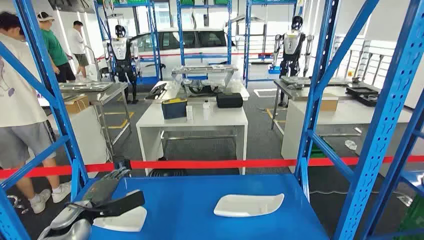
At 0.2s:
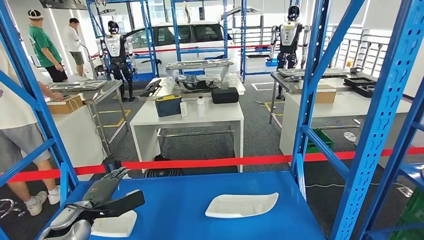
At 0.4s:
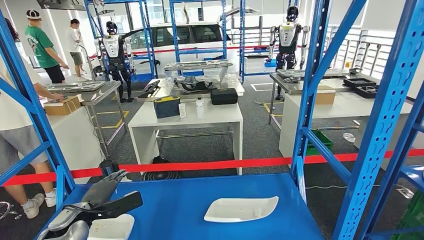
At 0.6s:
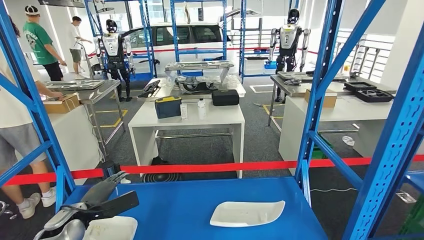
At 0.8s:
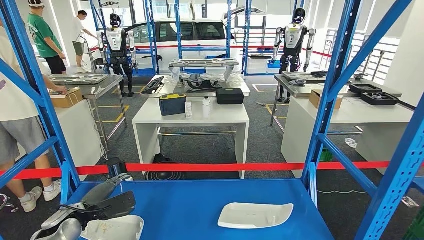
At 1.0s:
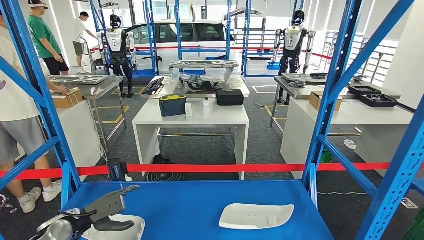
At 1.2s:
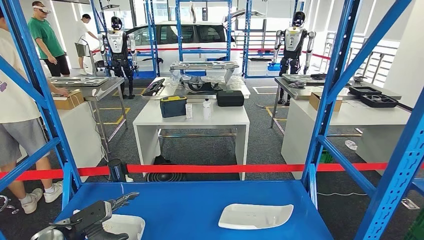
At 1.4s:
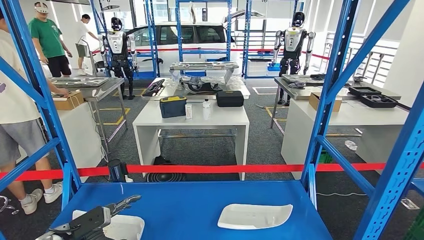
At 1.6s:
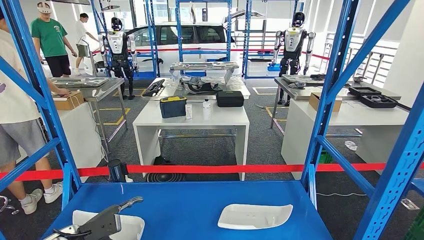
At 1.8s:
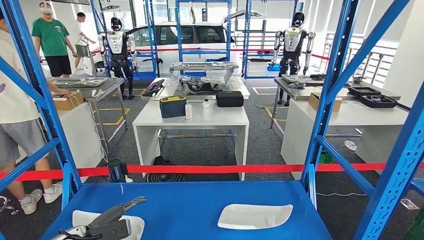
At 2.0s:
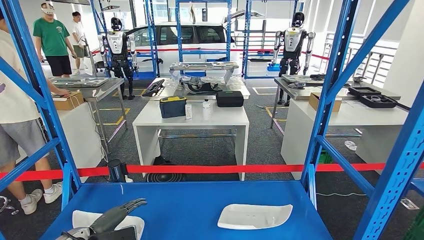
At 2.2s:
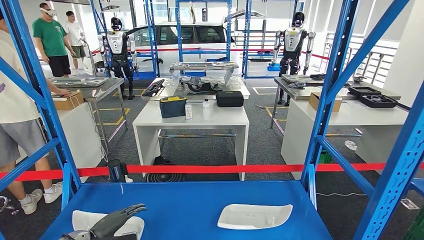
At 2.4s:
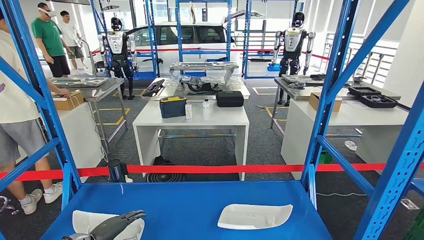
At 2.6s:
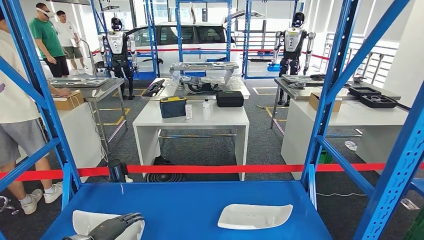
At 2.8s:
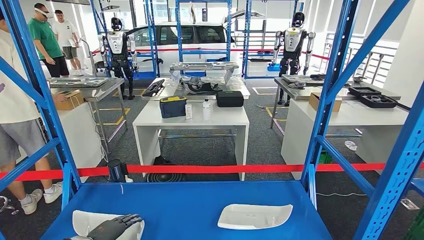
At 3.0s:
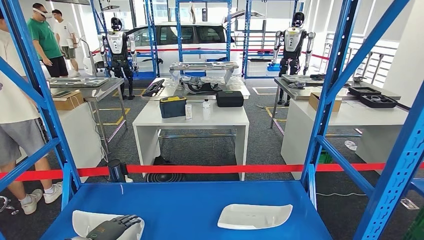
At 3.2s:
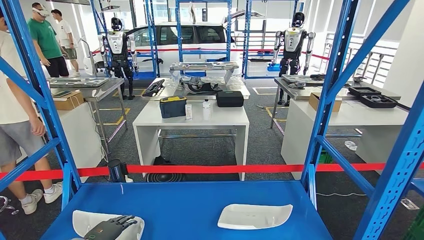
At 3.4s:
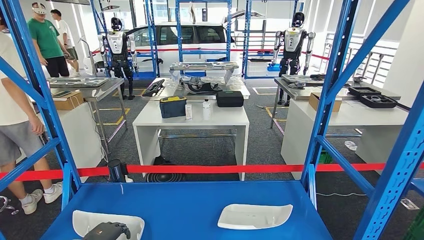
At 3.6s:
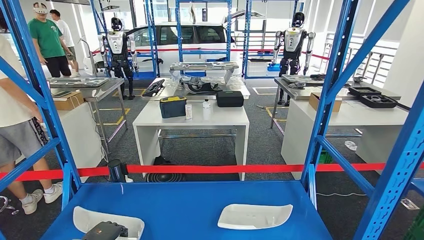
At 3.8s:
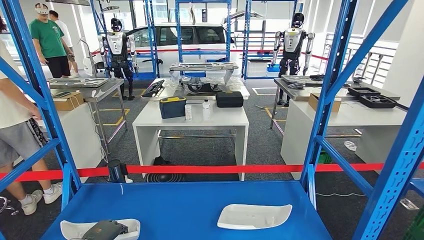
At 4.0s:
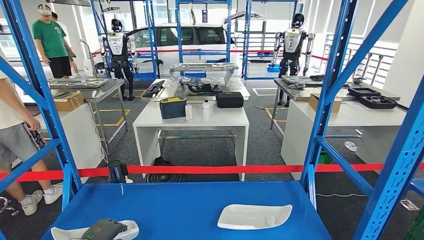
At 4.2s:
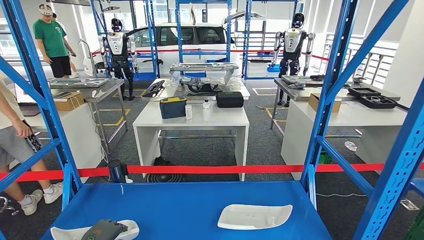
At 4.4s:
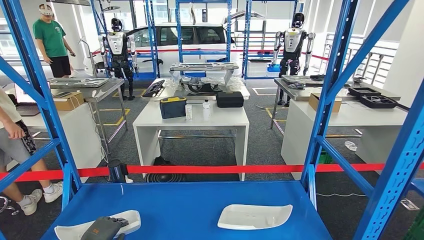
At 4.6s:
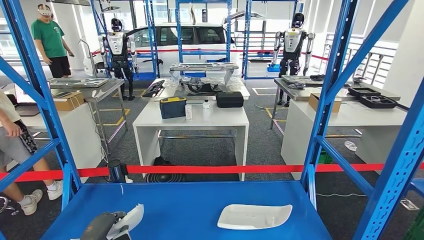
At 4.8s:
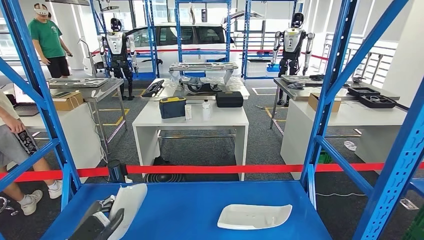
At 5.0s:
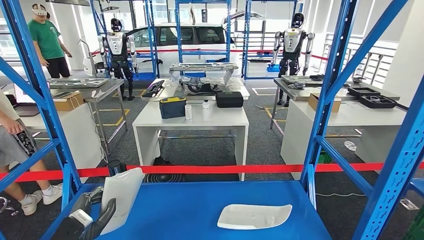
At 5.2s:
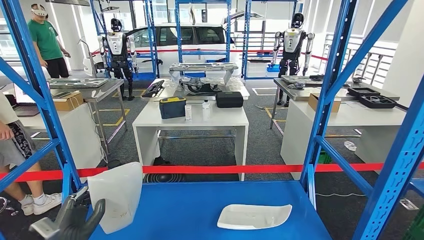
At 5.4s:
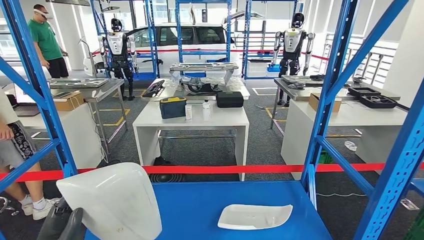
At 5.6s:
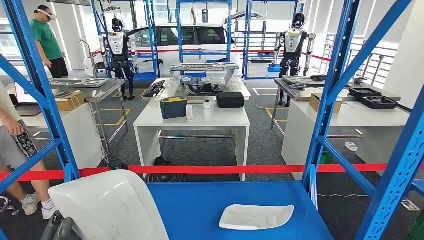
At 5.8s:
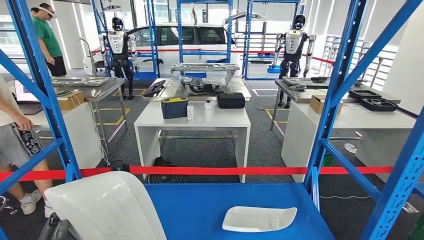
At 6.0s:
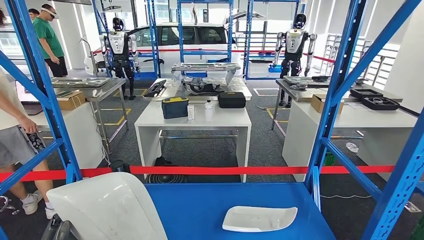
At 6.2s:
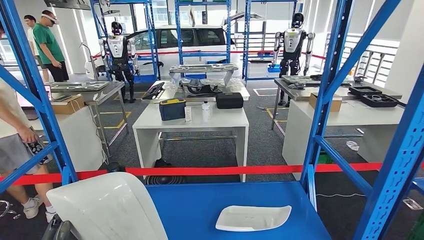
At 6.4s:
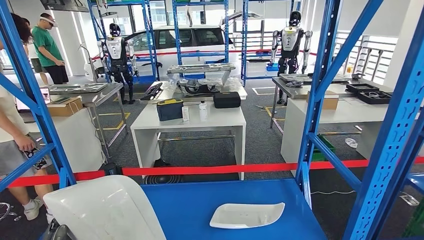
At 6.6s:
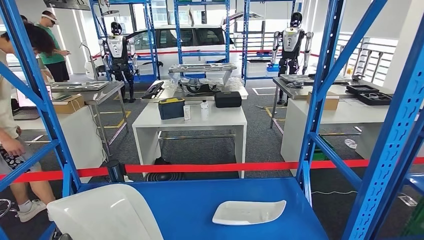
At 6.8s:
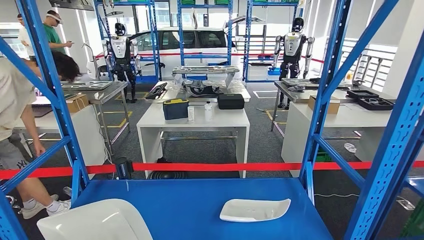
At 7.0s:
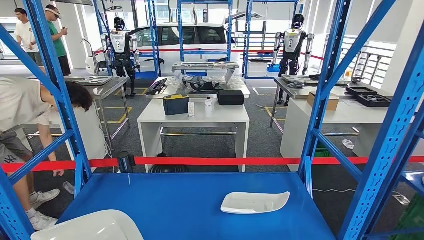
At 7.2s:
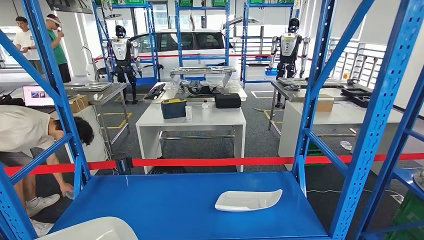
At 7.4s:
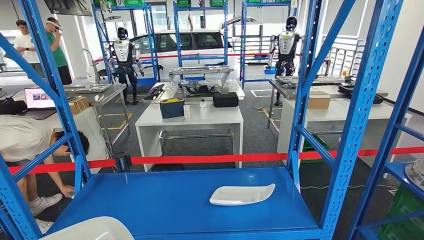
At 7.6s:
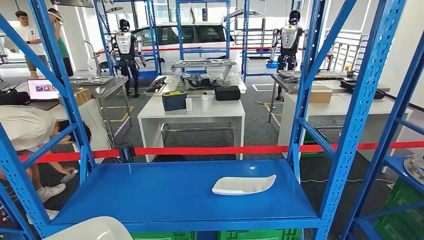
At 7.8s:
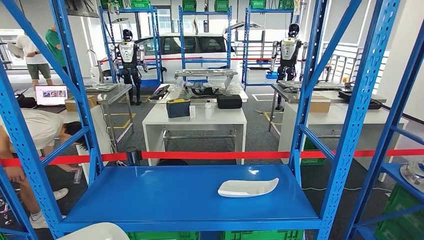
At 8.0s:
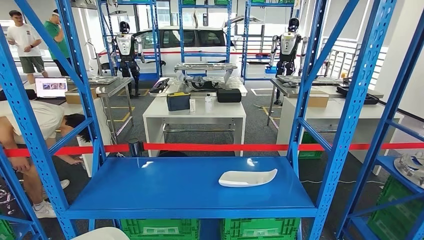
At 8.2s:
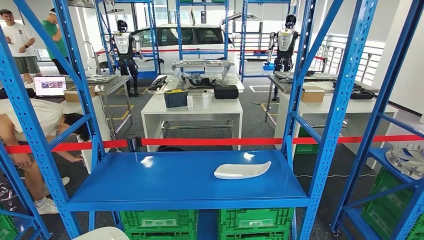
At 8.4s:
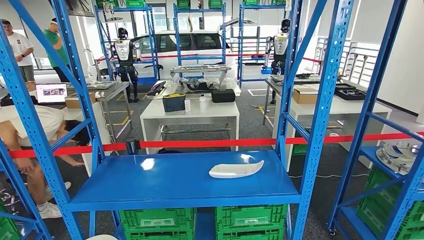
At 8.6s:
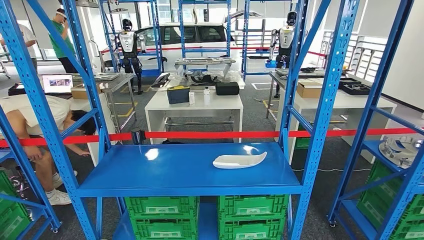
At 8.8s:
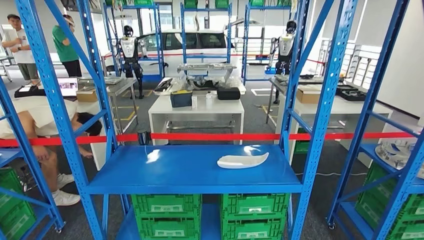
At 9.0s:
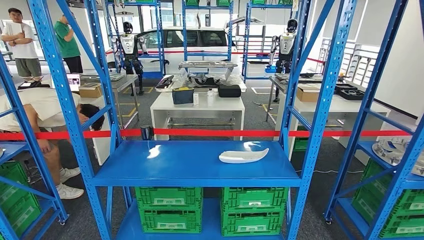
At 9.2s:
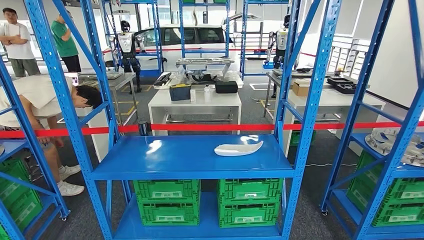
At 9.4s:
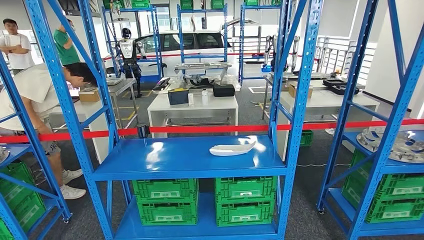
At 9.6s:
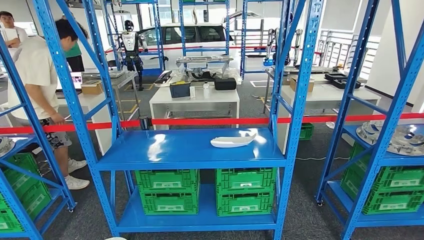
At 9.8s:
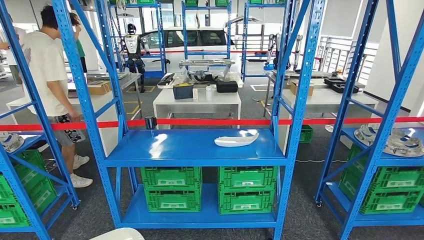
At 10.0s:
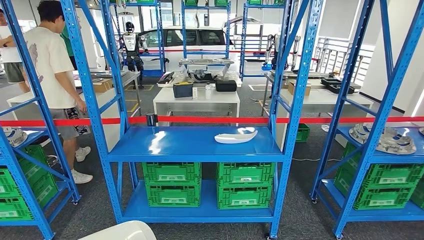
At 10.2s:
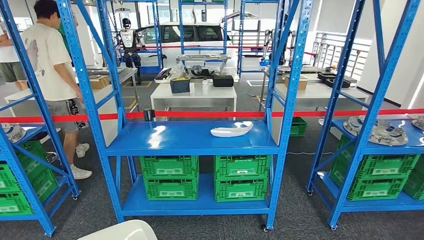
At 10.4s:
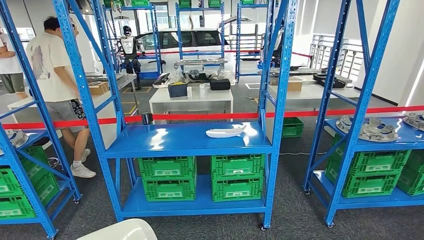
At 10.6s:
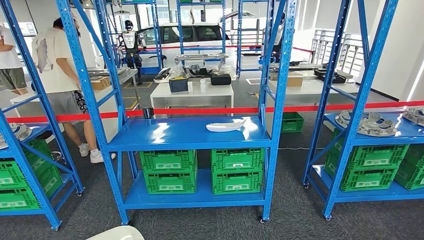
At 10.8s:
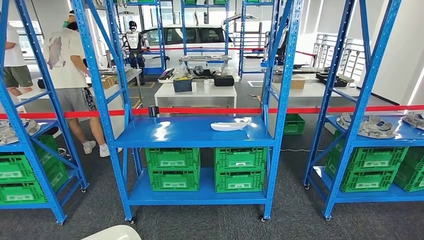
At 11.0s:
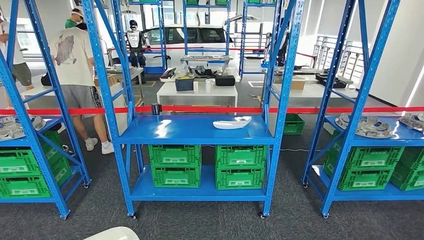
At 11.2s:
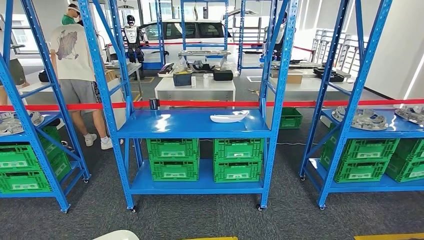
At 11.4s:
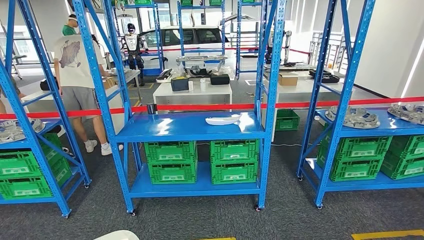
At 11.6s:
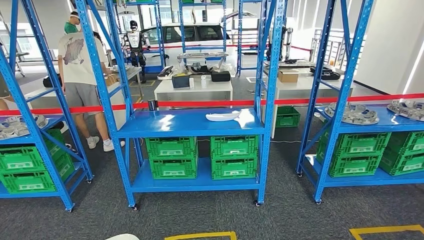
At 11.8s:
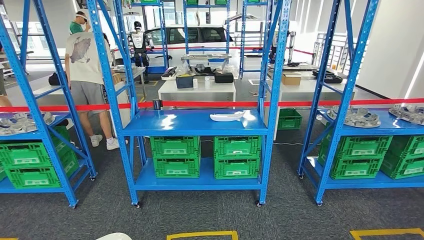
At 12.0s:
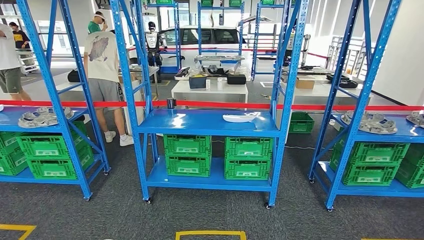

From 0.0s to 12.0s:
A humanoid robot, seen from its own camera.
Step, from 0.0s to 5.6s: Pick up the small parts from the shelf.
From 3.0s to 4.4s: The hands stay close to where they were, moving slightly.

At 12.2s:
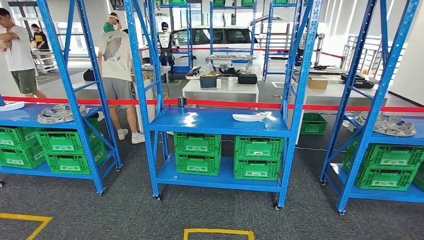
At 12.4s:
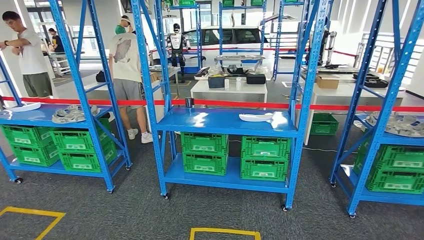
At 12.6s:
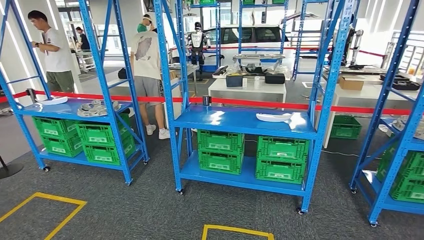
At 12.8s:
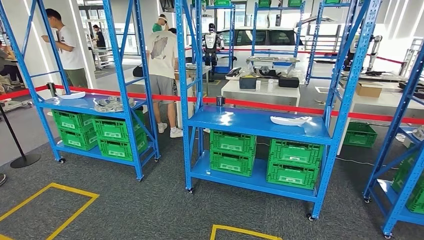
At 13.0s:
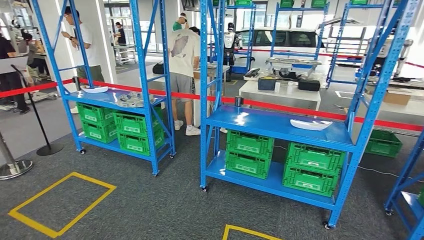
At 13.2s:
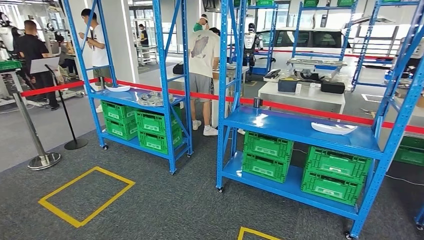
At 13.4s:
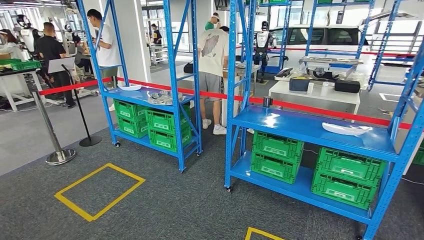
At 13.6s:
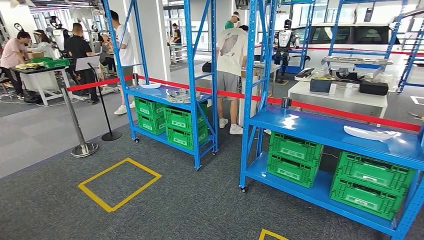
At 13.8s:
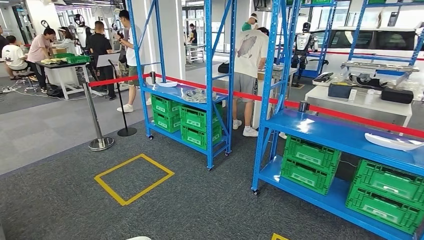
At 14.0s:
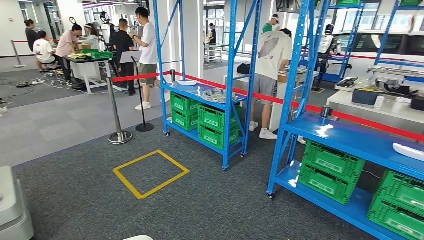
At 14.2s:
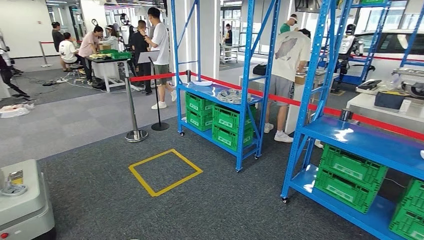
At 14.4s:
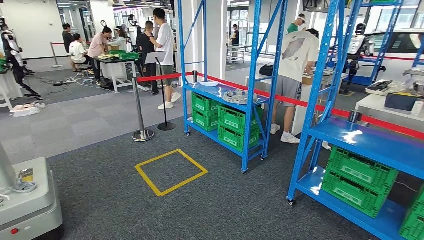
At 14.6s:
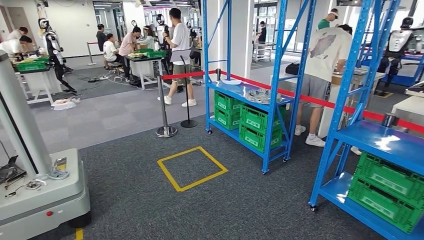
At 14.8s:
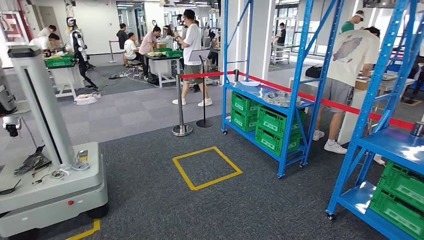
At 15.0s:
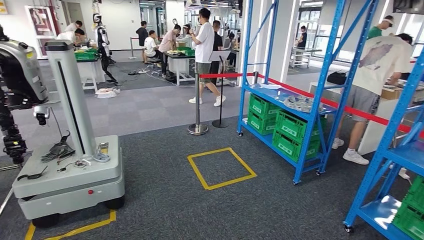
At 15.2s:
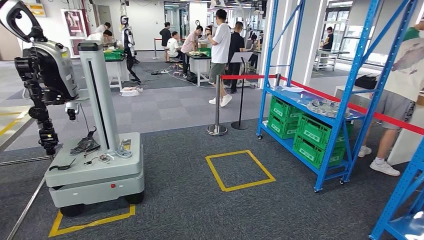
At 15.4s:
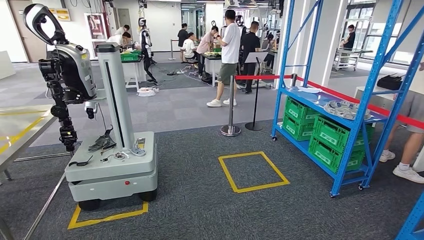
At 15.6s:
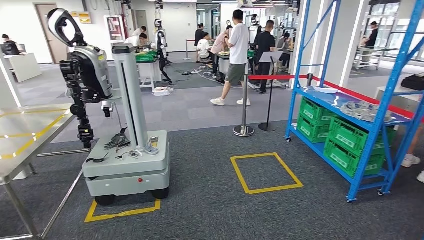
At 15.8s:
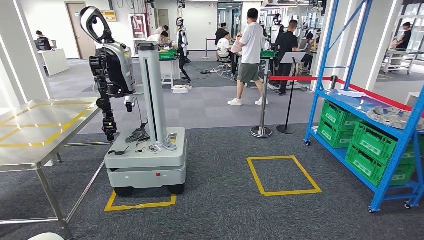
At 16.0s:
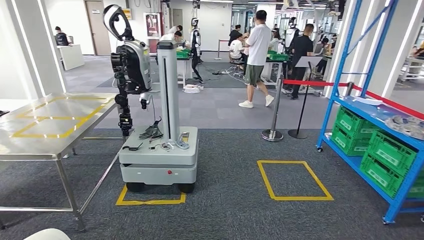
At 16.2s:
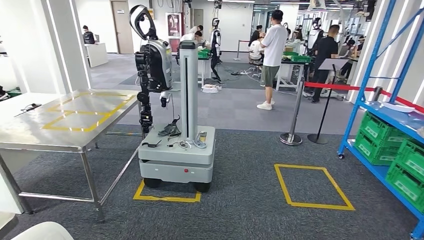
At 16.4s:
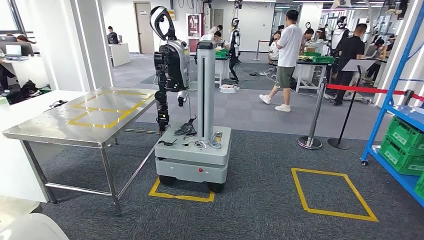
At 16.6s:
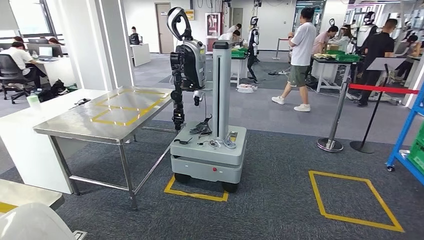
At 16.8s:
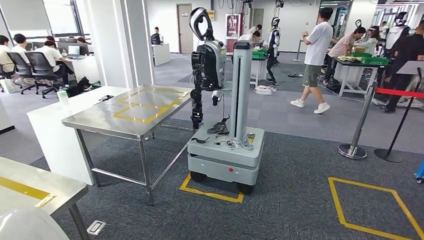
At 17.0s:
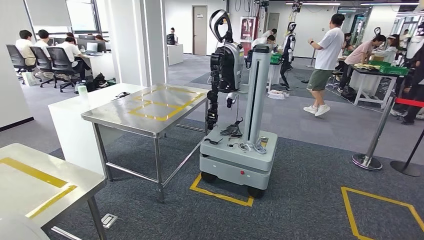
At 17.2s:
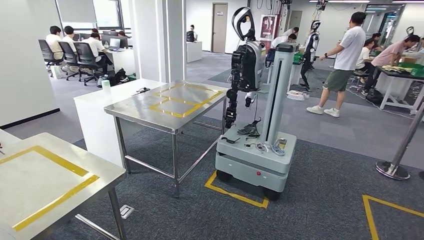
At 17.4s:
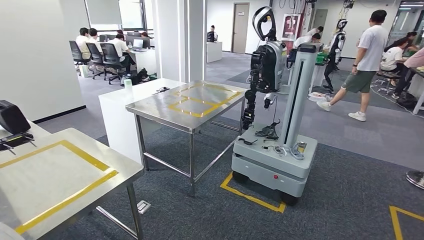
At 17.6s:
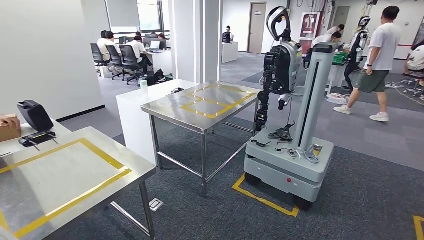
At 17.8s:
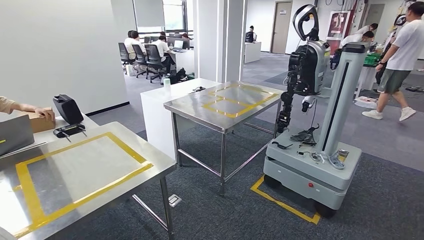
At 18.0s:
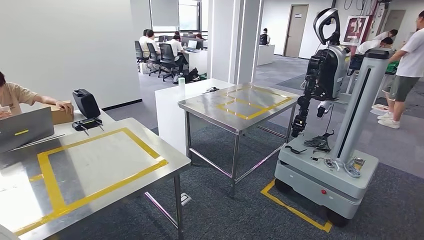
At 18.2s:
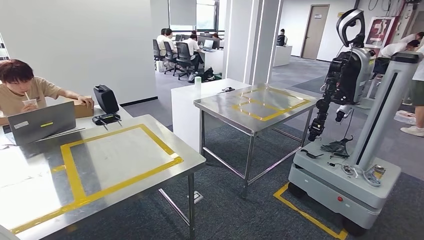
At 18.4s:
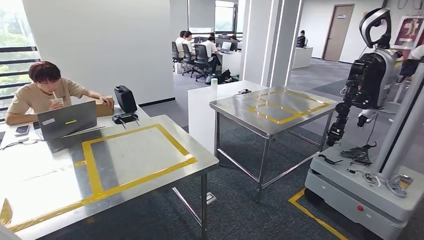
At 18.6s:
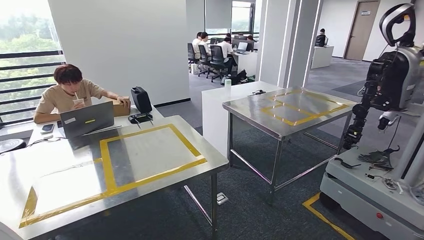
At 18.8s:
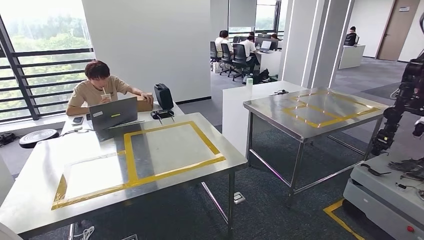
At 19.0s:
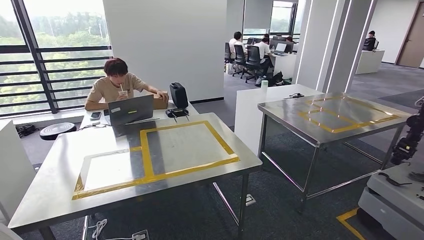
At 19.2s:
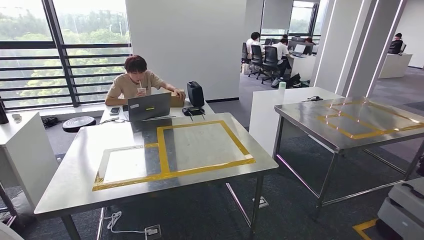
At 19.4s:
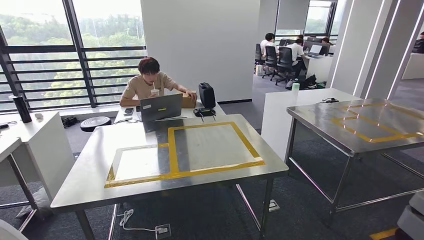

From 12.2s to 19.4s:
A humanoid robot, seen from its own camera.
Step, from 12.2s to 18.8s: Move the small parts to the workbench.
